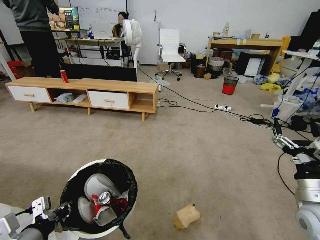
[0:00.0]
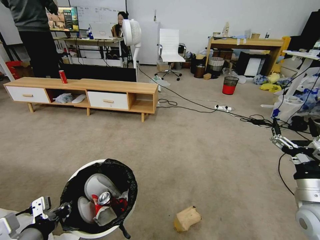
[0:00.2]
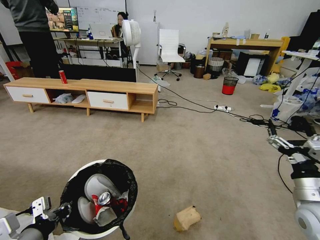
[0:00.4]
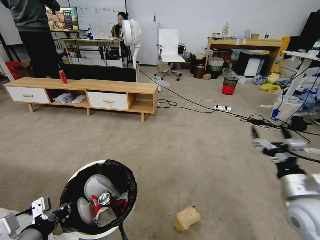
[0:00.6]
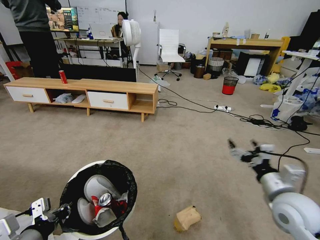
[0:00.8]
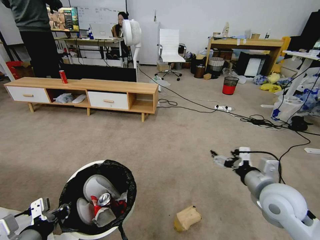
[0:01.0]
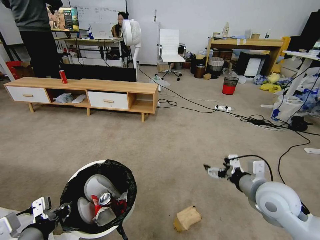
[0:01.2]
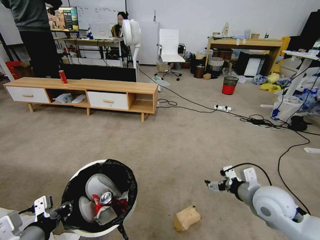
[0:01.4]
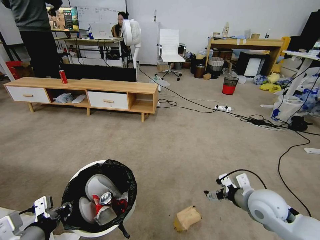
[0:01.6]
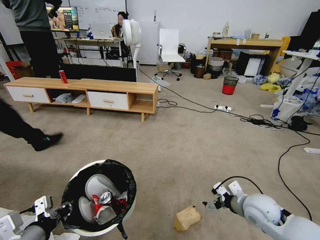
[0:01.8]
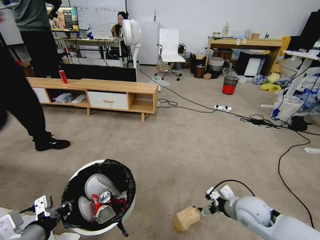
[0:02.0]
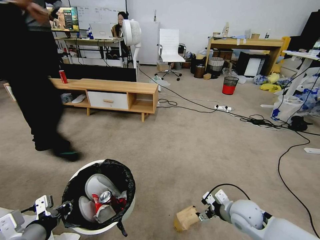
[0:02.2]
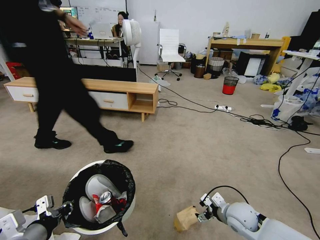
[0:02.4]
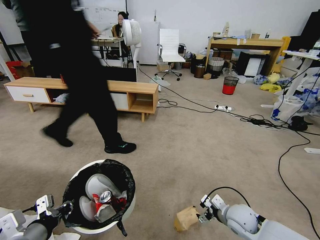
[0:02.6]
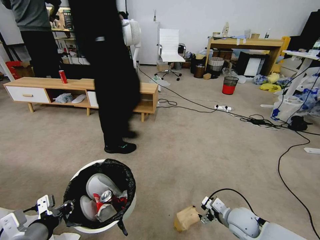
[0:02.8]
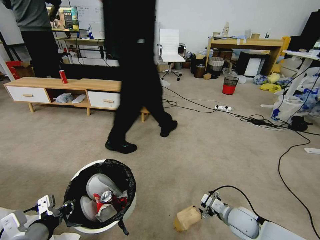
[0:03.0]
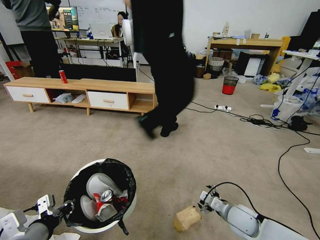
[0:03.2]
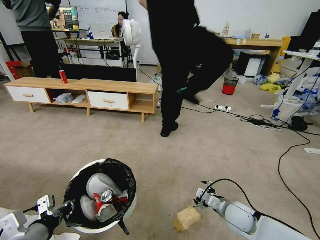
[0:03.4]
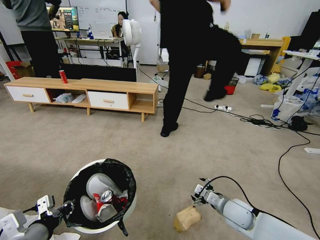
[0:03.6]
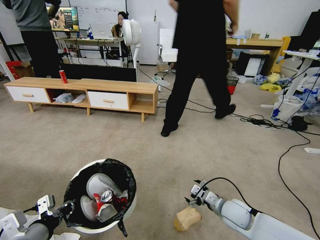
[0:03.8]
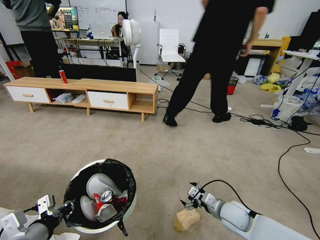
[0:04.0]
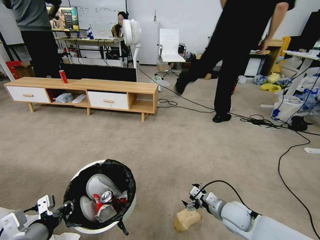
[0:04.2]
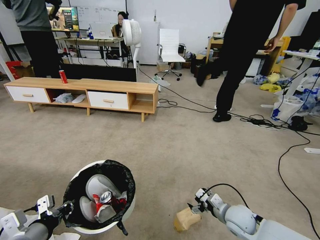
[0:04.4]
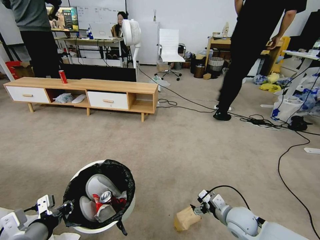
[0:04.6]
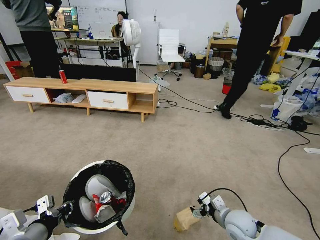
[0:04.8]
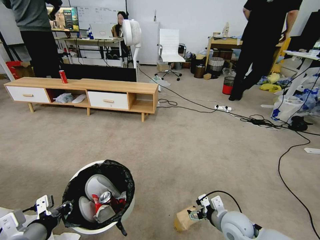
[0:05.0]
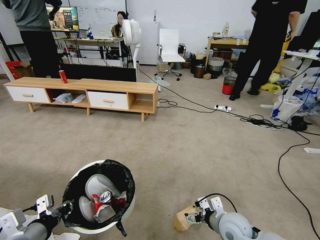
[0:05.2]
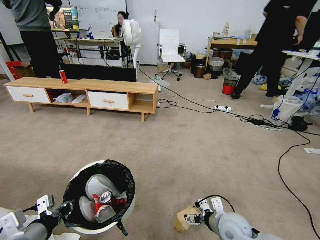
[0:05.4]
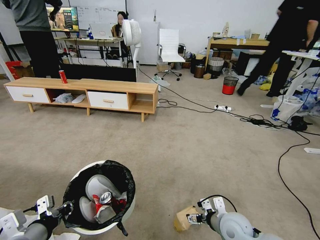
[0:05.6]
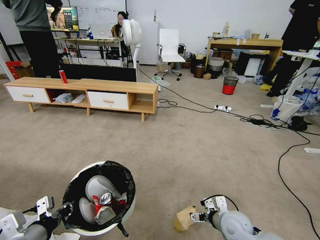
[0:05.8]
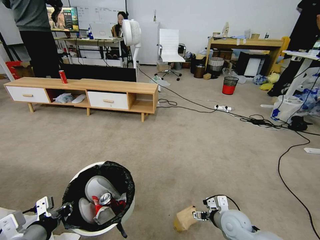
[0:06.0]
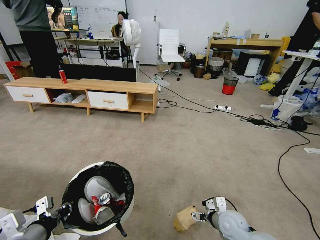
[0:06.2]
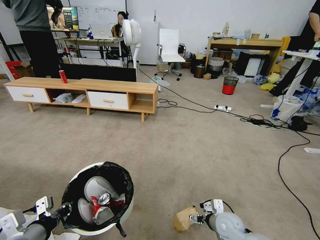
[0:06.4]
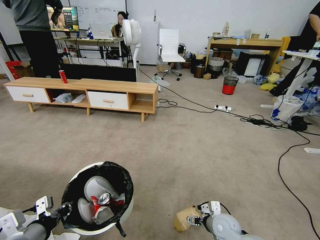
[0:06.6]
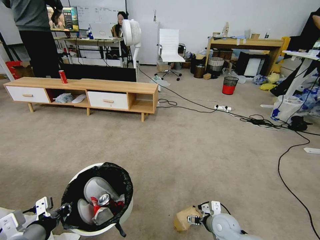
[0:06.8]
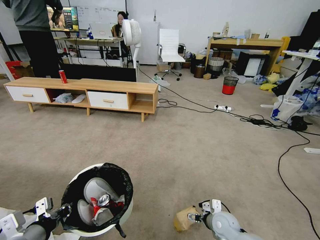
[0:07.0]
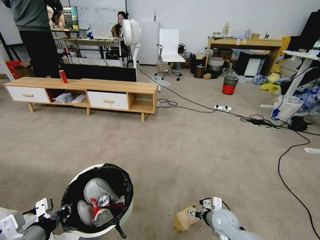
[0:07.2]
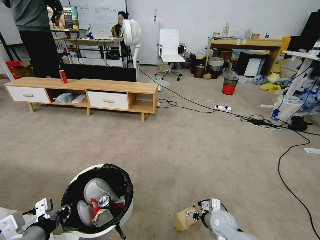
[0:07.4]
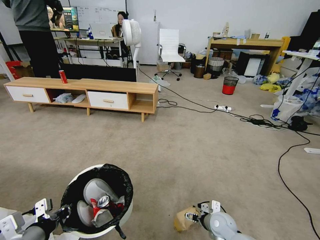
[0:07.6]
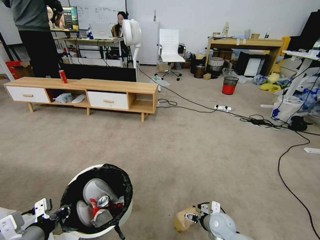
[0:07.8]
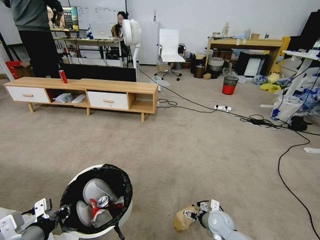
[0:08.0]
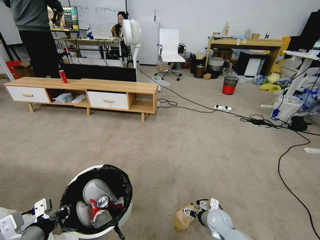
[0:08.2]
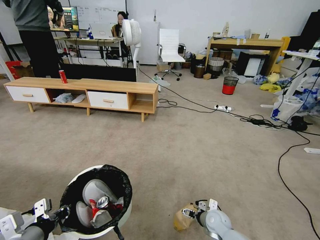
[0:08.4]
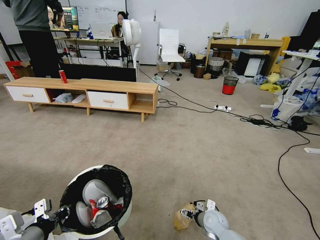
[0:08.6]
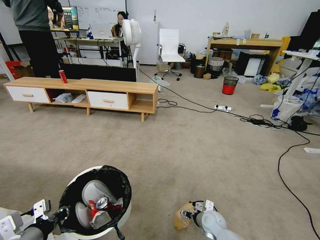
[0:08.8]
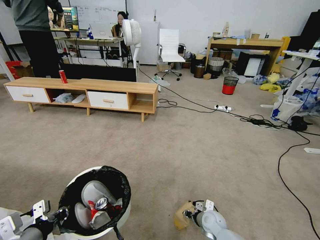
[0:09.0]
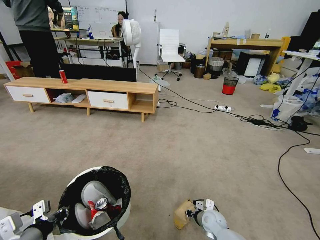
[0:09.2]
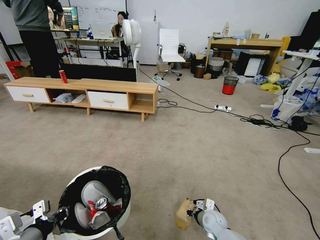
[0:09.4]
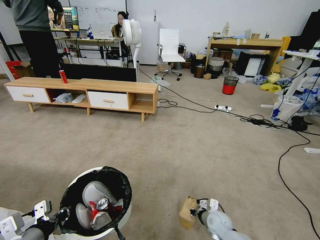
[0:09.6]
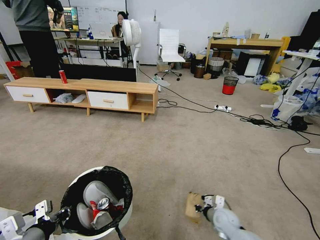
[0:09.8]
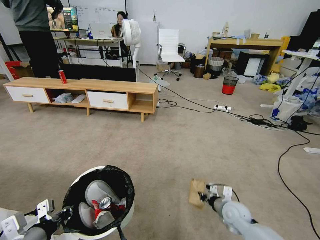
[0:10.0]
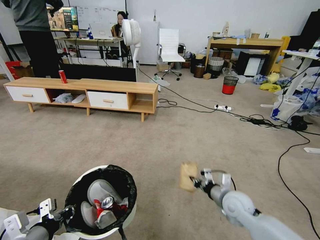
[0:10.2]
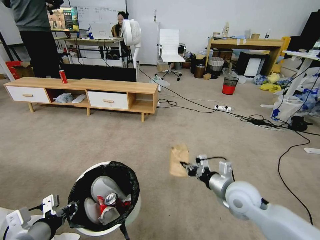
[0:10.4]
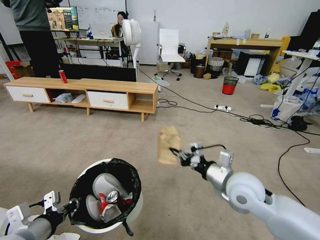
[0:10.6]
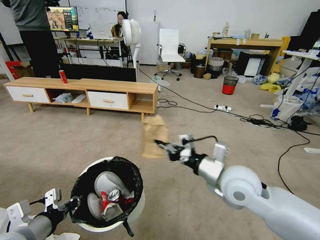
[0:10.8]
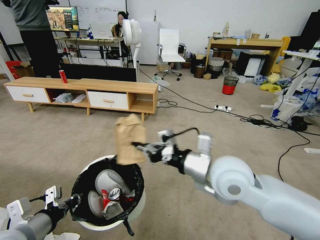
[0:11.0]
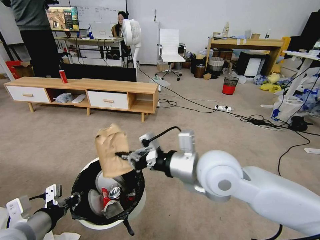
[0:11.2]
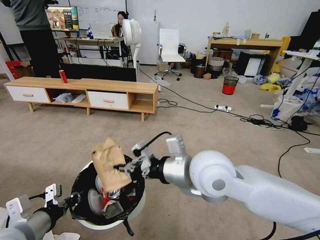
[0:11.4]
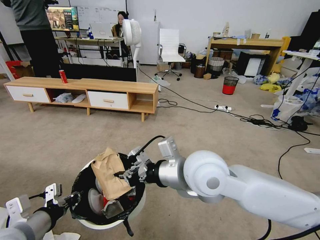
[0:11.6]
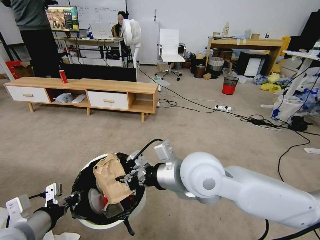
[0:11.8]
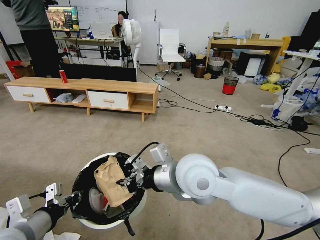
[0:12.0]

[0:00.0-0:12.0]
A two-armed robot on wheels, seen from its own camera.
Task of the whole recording: Pick up the trash bin, then pick up the garbage from the floor and place it into the trash bin.
0.0 to 1.6 s: The right gripper moves to the left and forward, approximately 10 cm.
1.6 to 3.0 s: The right gripper travels downward by roughly 15 cm.
3.0 to 4.4 s: There are only small adjustments of the grippers.
6.0 to 7.6 s: The right gripper is displaced downward by roughly 5 cm.
7.6 to 9.0 s: The right gripper ends up roughly 5 cm from where it was, and closes its fingers.
9.0 to 10.4 s: The right gripper heads upward, covering roughly 25 cm, and closes up.
10.4 to 12.0 s: The right gripper travels to the left and upward by approximately 25 cm.

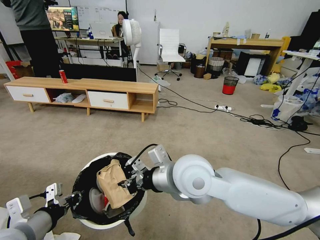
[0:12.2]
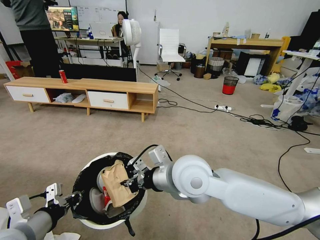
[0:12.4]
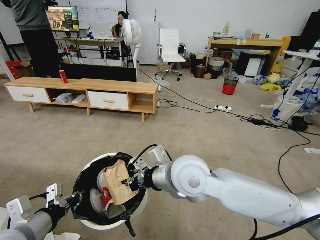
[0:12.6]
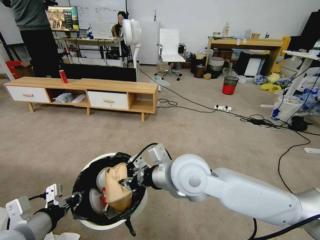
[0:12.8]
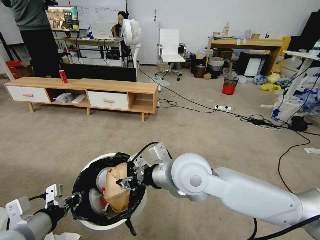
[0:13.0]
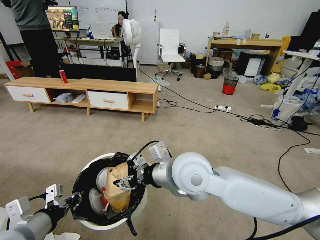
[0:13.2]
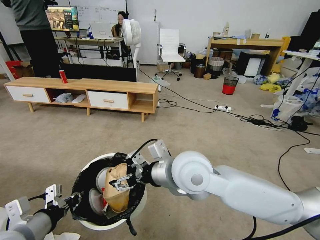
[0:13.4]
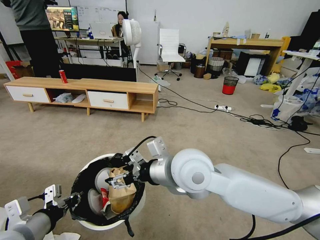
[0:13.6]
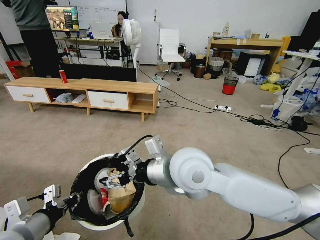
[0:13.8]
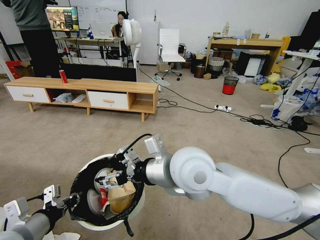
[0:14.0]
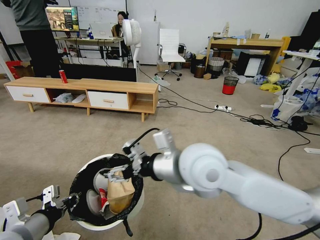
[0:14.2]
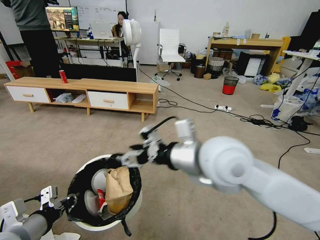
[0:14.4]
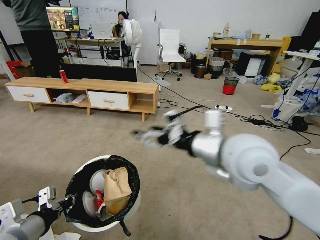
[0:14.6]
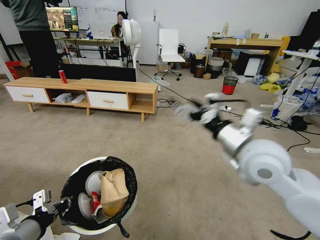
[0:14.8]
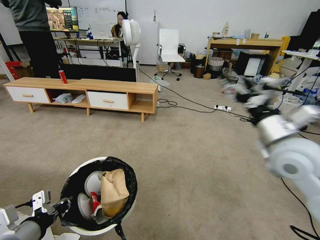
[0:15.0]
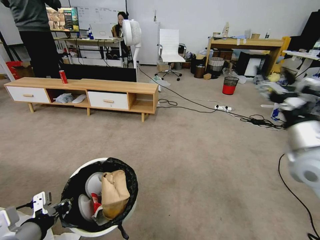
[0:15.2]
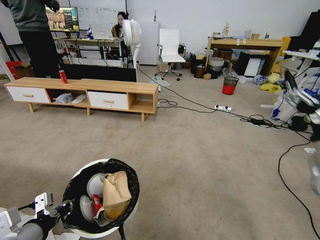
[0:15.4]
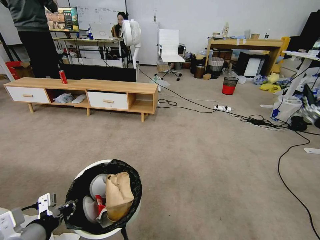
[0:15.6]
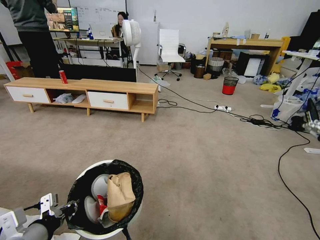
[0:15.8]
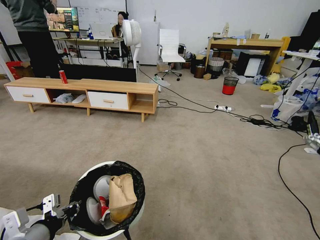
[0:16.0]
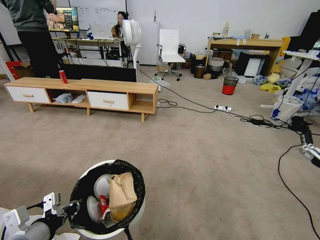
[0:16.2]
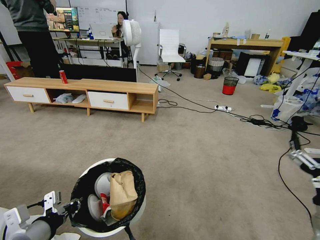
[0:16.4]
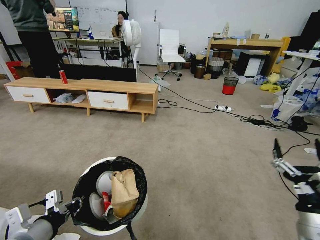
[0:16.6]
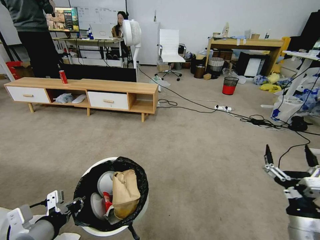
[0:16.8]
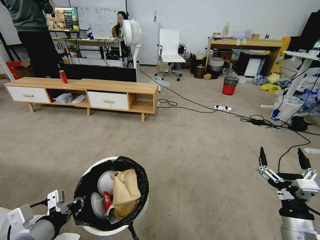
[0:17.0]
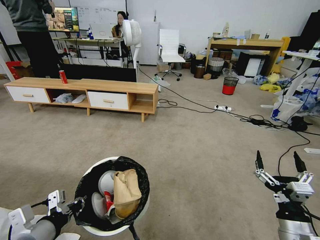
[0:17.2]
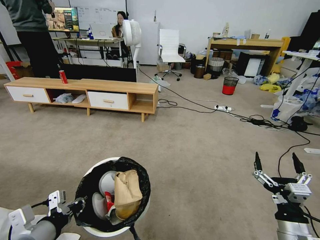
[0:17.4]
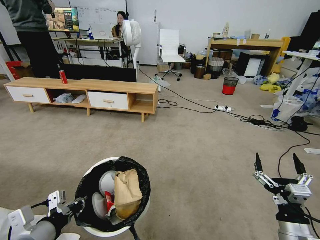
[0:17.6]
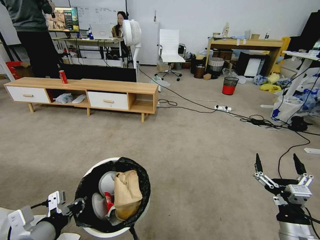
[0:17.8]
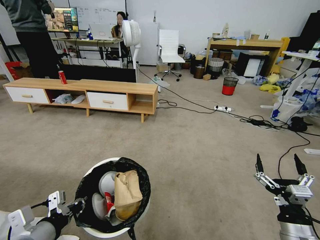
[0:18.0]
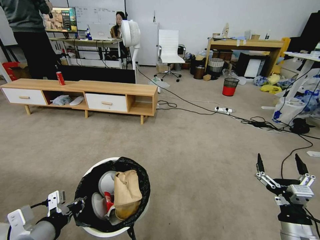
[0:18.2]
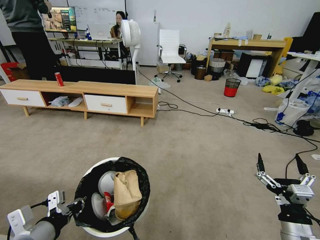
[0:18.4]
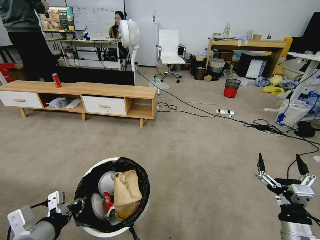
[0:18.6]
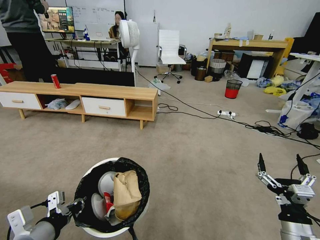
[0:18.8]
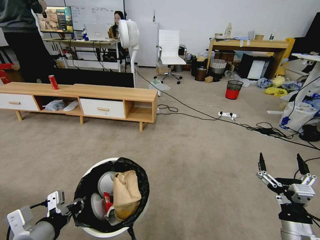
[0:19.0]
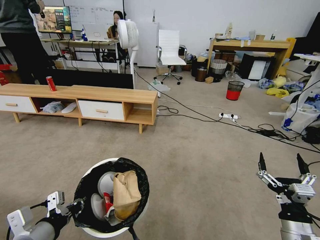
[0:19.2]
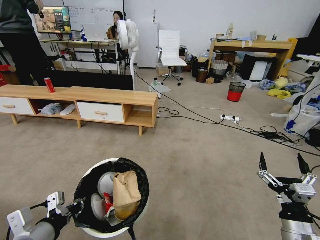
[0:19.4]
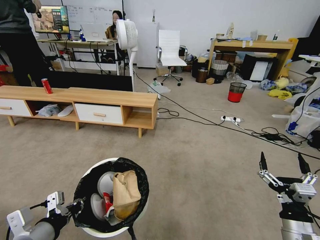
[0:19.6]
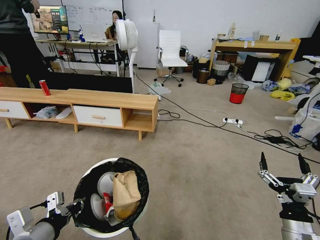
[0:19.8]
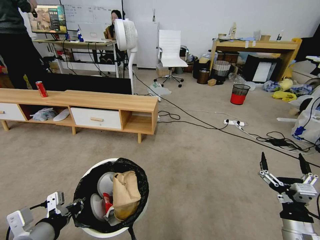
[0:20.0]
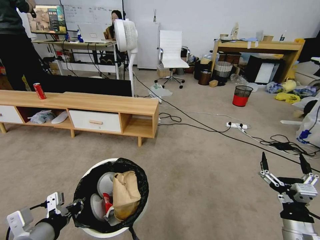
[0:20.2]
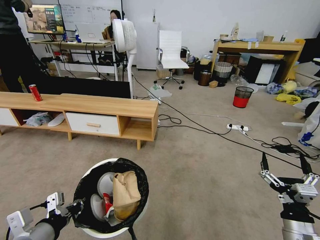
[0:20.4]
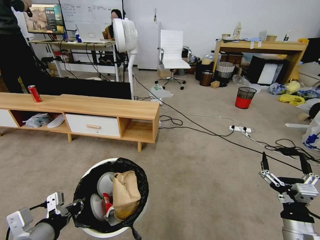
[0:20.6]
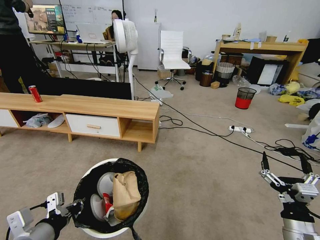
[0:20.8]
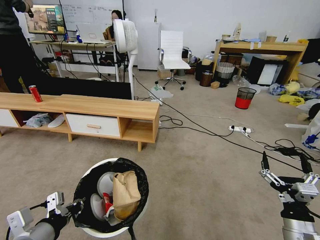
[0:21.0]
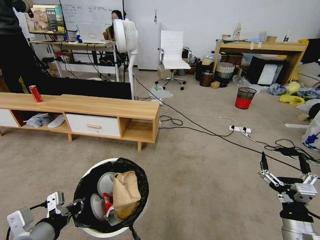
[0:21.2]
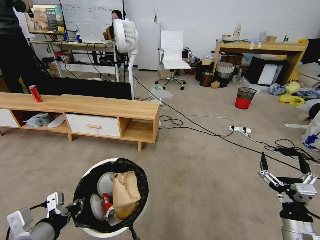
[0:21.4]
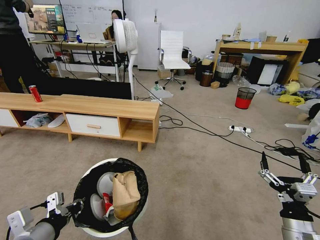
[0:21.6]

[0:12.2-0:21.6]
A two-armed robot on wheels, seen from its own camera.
Task of the whole recording: Pick up the trash bin, then pick up the garbage from the floor and place it into the trash bin.
12.2 to 13.8 s: The right gripper opens up.
13.8 to 15.4 s: The right gripper goes about 35 cm to the right.
15.4 to 17.0 s: The right gripper shifts some 20 cm downward and backward.

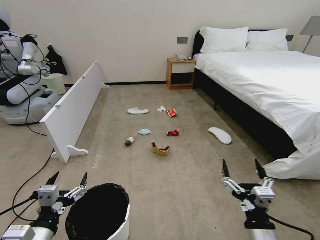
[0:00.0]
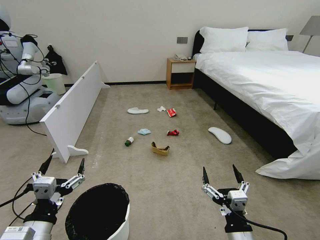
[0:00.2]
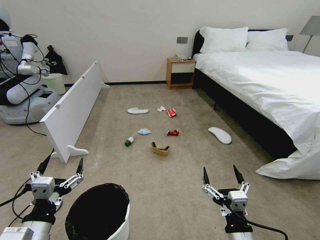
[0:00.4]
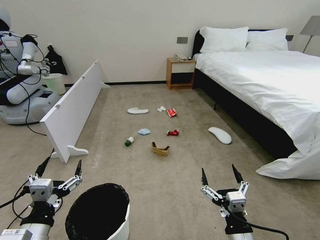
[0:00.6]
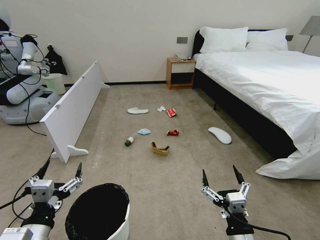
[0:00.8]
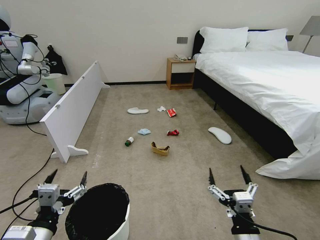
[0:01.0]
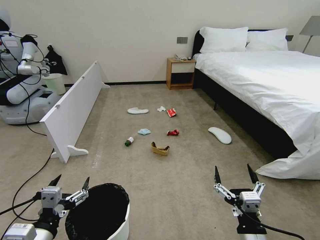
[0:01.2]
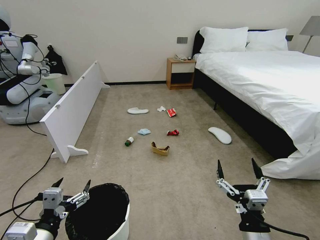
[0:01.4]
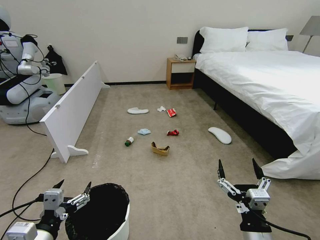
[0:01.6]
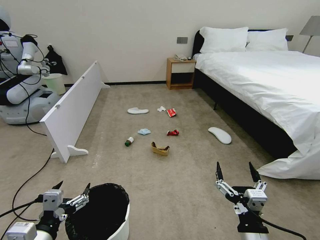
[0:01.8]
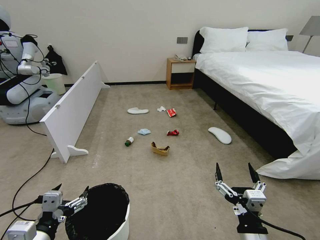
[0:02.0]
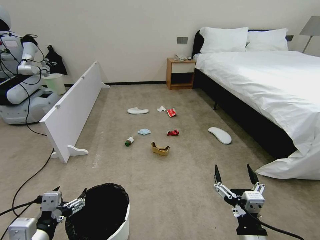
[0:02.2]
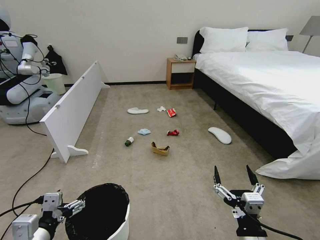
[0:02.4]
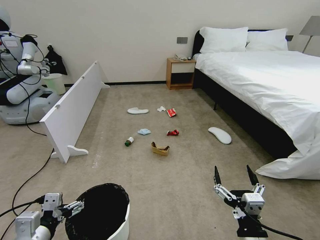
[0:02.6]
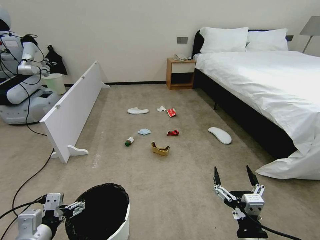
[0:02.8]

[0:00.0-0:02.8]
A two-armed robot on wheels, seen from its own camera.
Task of the whole recording: Pick up the trash bin, then pick up the garbage from the floor and place it into the trash bin.
1.4 to 2.8 s: The grippers move only a little.
